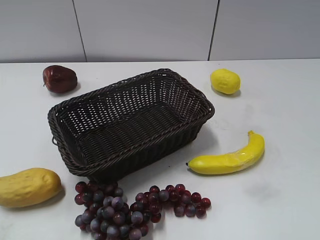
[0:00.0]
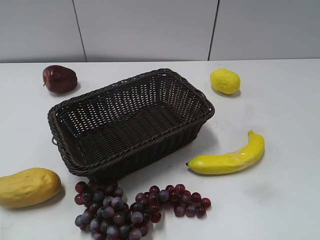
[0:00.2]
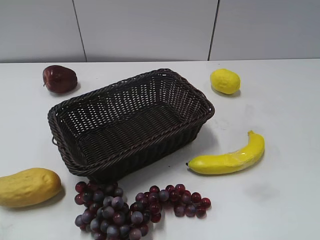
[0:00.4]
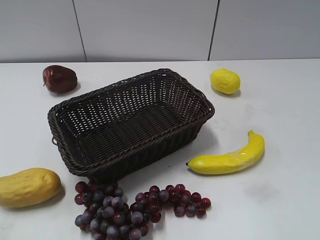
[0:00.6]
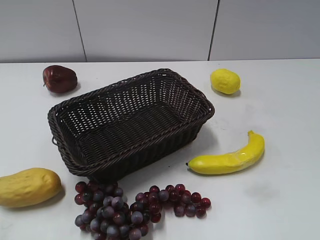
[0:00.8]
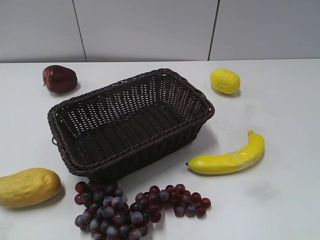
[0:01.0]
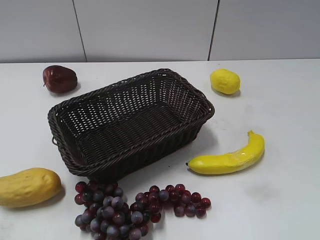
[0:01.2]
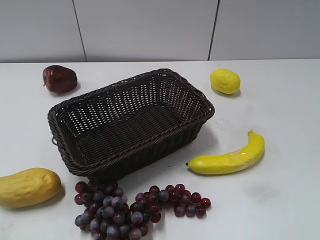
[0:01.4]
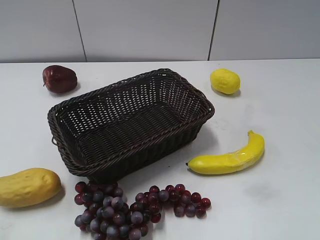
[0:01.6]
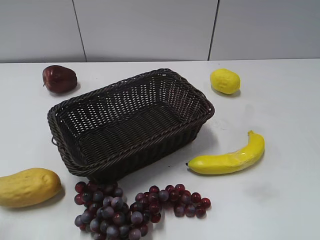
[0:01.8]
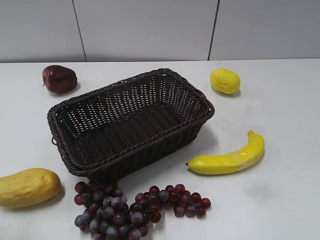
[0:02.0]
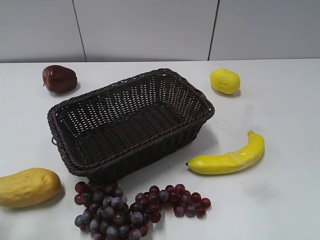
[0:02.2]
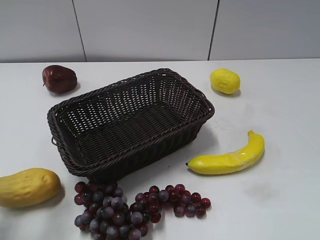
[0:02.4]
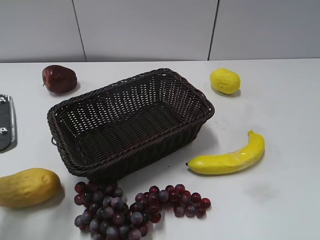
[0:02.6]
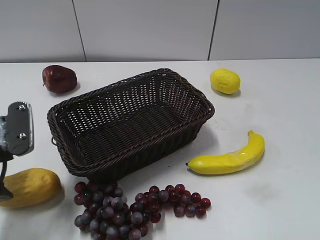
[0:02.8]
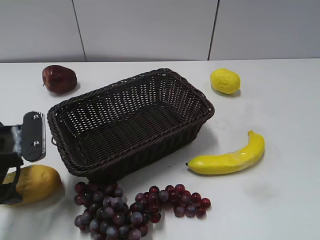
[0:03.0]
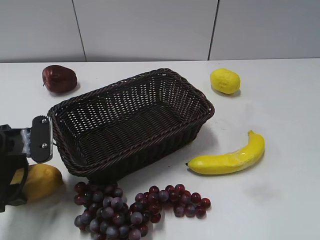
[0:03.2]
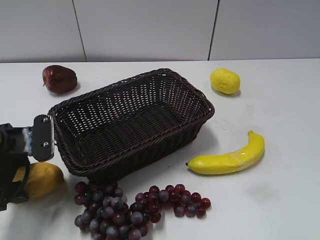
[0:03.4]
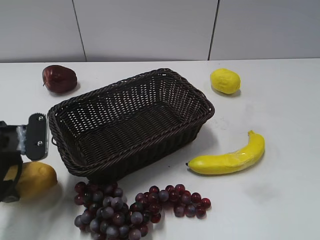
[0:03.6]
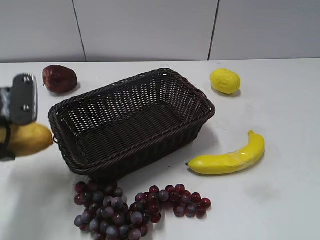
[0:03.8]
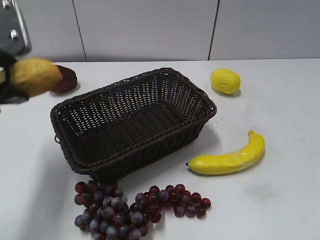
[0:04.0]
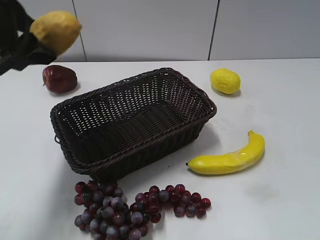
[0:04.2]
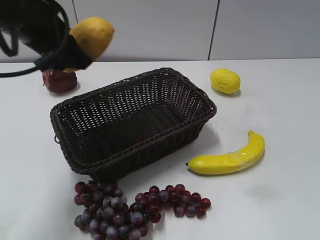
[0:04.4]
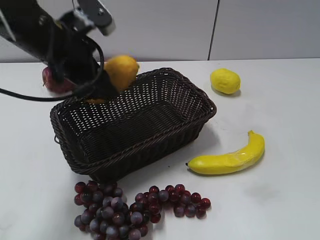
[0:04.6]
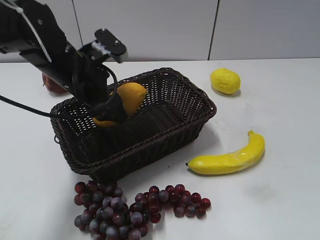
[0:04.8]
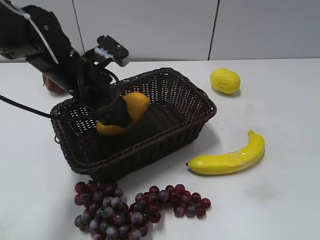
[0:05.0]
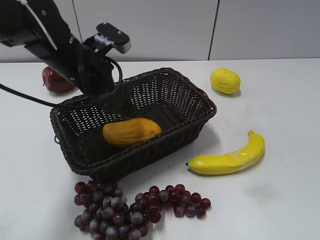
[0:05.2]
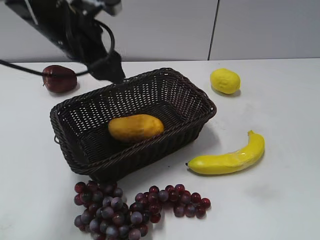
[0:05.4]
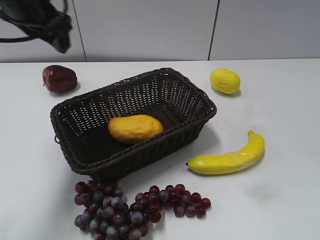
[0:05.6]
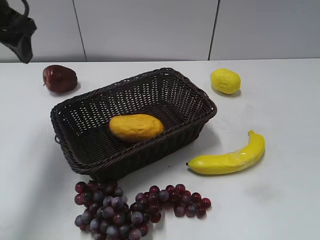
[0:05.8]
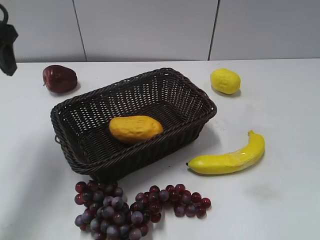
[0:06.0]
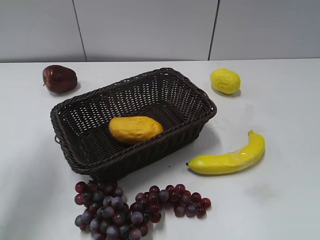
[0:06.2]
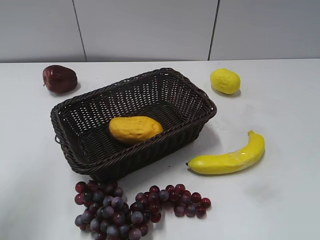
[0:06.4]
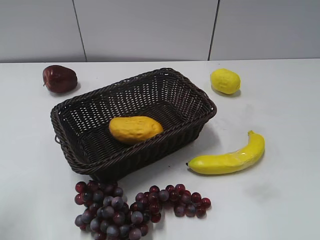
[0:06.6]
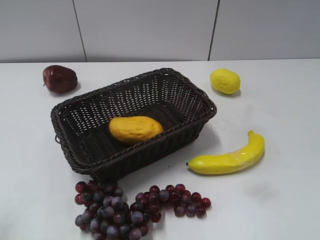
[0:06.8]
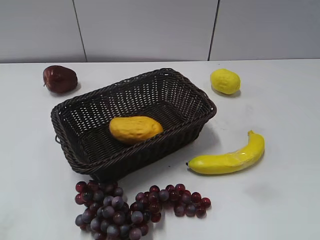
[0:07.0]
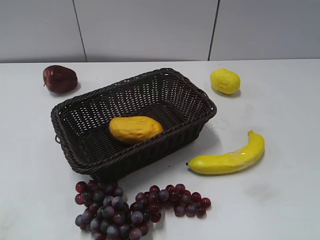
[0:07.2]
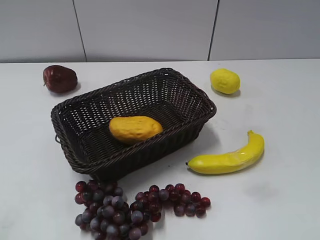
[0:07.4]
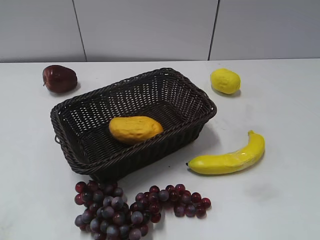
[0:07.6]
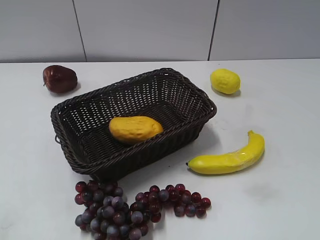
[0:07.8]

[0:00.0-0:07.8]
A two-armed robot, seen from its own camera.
Step, 0:02.6 to 0:03.4: Grasp the mango with left gripper.
Step, 0:03.6 to 0:05.0: Place the mango in the basket with left gripper.
0:01.6 to 0:03.2: The left gripper moves forward, downward and to the right, roughly 25 cm, and opens.
0:03.2 to 0:04.6: The left gripper goes approximately 15 cm upward, to the right and forward.
0:04.6 to 0:06.2: The left gripper travels to the left and upward by approximately 15 cm, and opens and closes again.
0:06.2 to 0:07.8: The left gripper is displaced backward by about 25 cm.

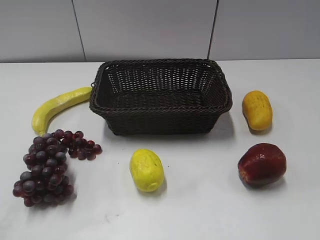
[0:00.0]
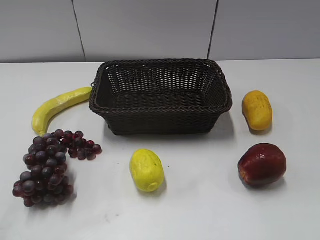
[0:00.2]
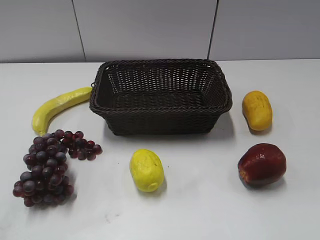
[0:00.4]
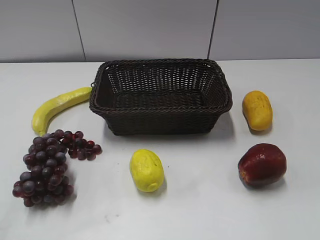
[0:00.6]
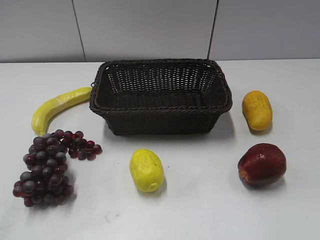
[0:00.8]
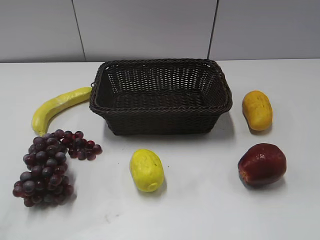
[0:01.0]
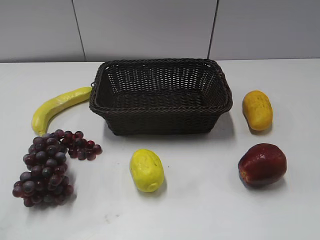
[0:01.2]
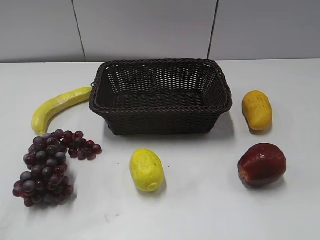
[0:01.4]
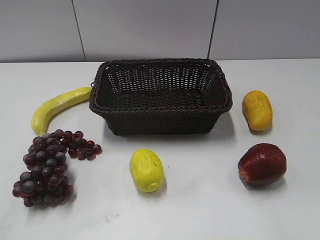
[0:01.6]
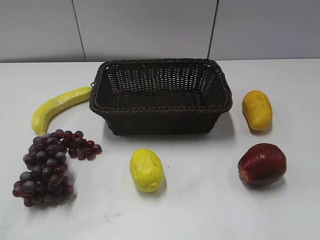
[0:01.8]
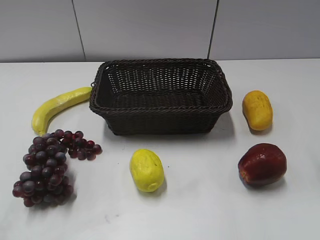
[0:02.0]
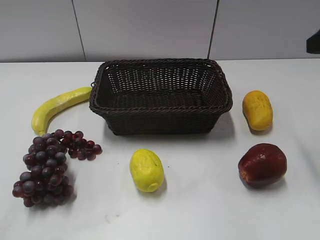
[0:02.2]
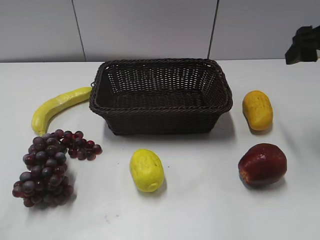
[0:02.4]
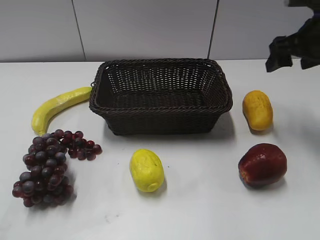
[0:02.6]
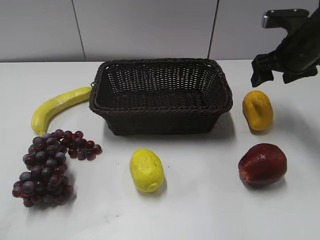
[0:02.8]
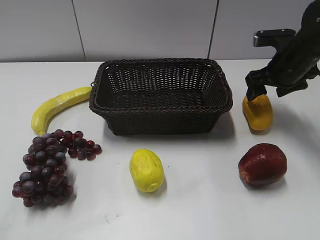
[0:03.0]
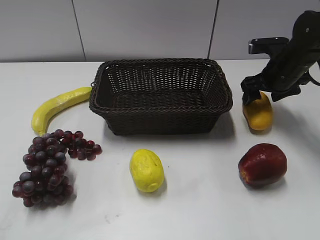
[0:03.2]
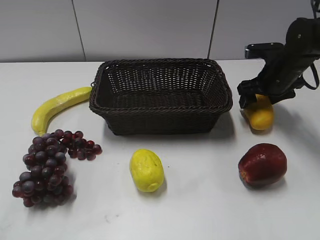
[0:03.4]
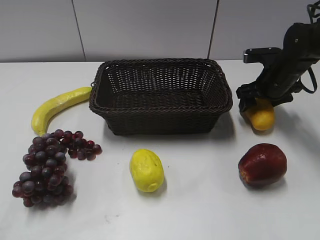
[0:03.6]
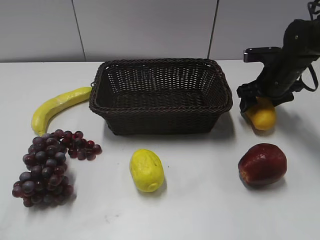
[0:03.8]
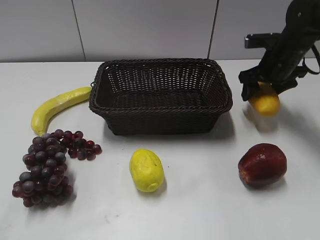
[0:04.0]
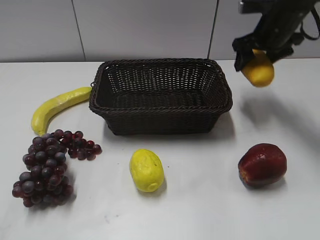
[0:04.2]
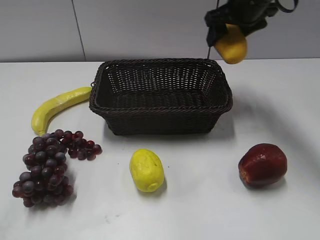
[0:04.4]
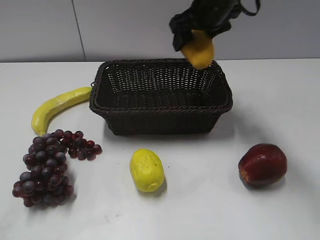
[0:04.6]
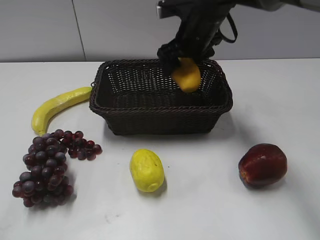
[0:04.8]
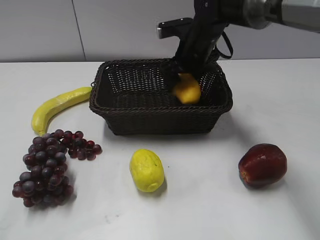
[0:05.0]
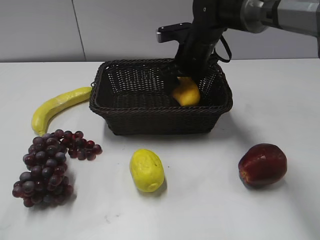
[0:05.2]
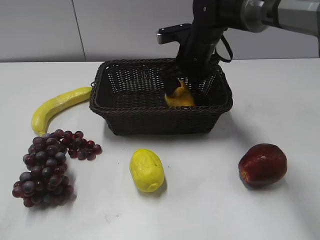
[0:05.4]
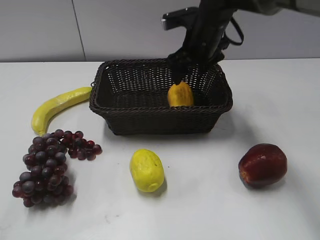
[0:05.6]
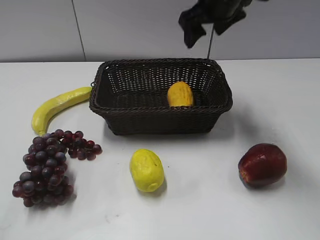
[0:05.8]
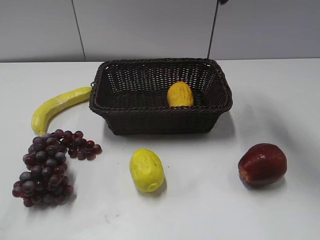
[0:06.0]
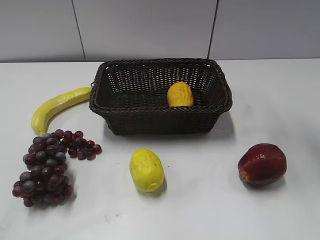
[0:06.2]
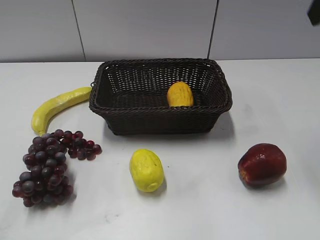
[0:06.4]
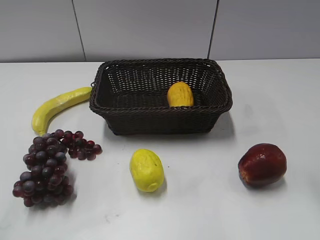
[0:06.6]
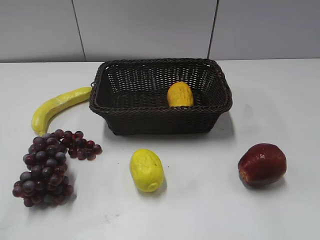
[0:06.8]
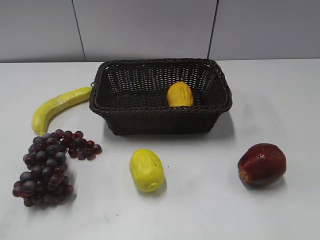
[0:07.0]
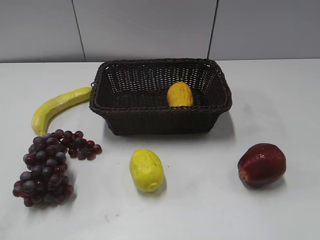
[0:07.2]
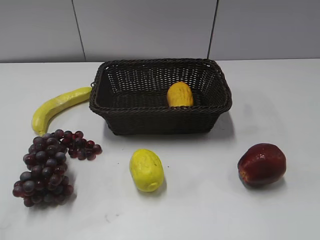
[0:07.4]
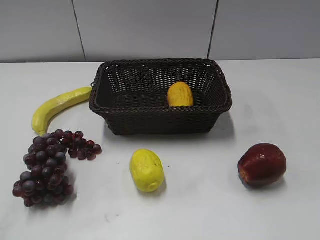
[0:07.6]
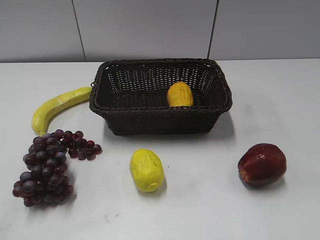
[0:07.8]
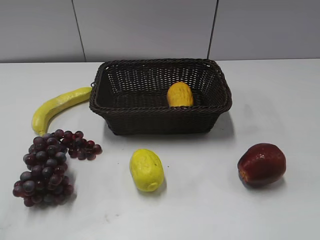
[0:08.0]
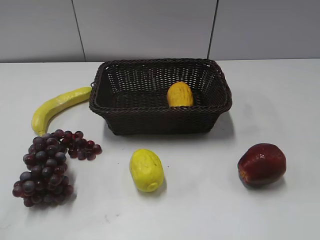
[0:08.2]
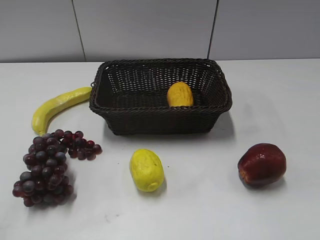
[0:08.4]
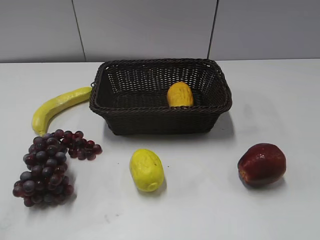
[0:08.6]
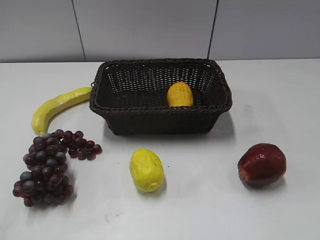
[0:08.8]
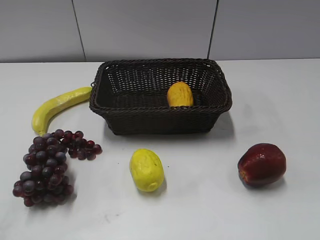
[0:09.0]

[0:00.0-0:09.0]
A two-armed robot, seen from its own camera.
Step, 0:02.2 to 0:03.6: Grasp the mango with right gripper.
Step, 0:03.8 to 0:05.4: Place the mango in the basket with right gripper.
0:01.6 to 0:03.0: The right gripper moves forward and downward, roughly 40 cm.
0:03.0 to 0:04.4: The right gripper goes about 15 cm upward and to the left, and closes.
0:04.4 to 0:06.0: The right gripper is displaced upward and backward by some 15 cm, and opens its fingers.
0:06.0 to 0:07.6: The right gripper shifts roughly 40 cm backward and to the right.
